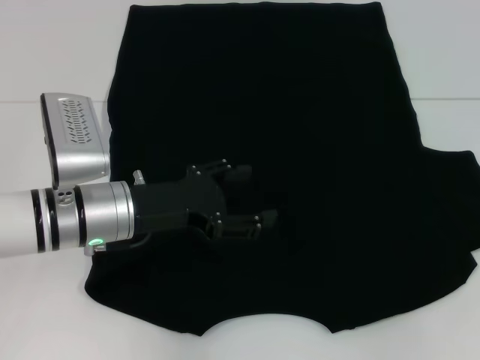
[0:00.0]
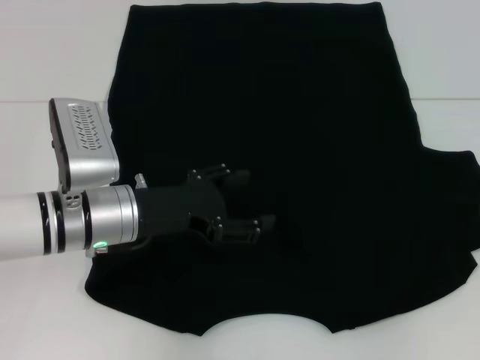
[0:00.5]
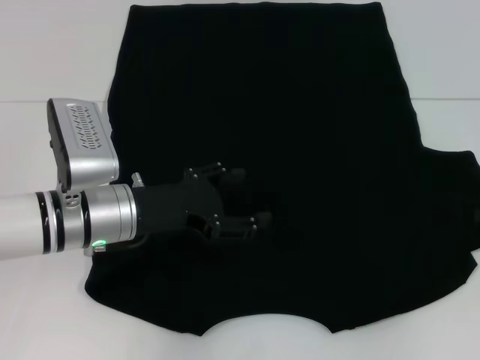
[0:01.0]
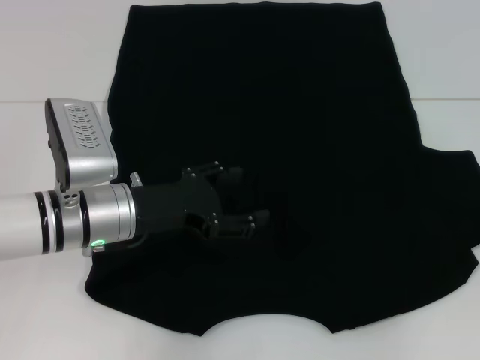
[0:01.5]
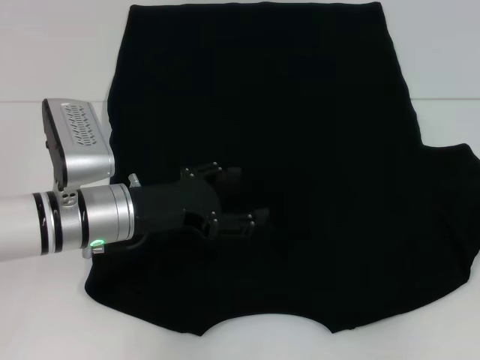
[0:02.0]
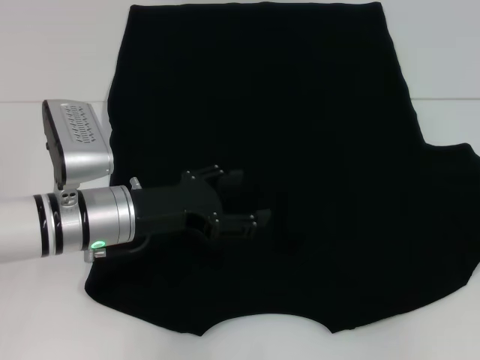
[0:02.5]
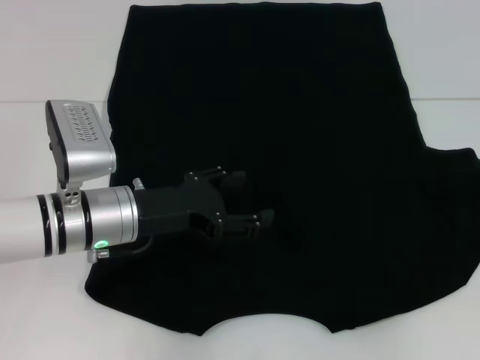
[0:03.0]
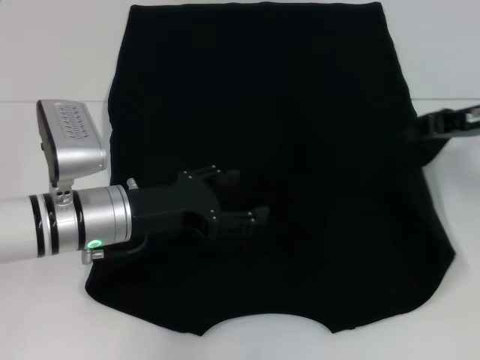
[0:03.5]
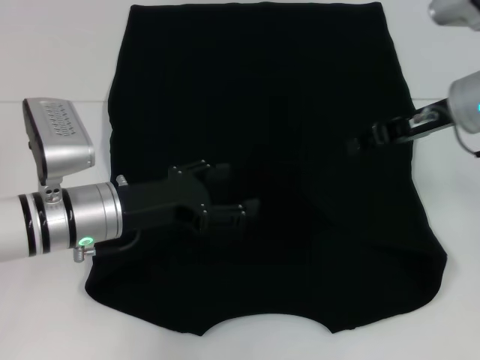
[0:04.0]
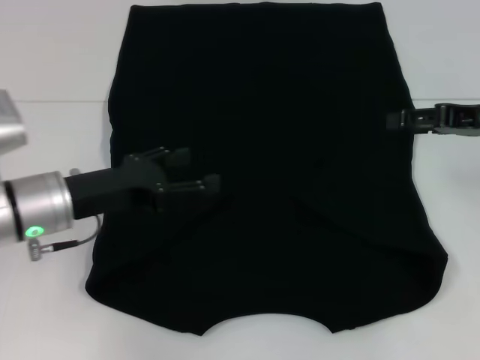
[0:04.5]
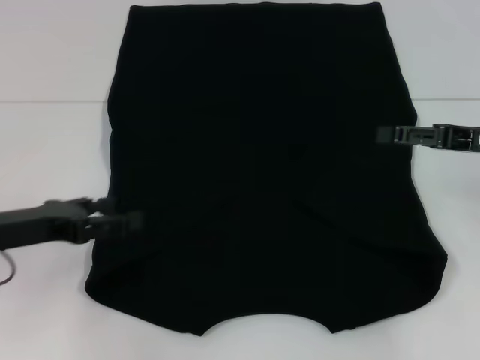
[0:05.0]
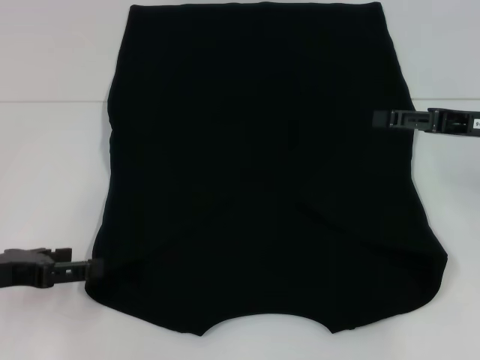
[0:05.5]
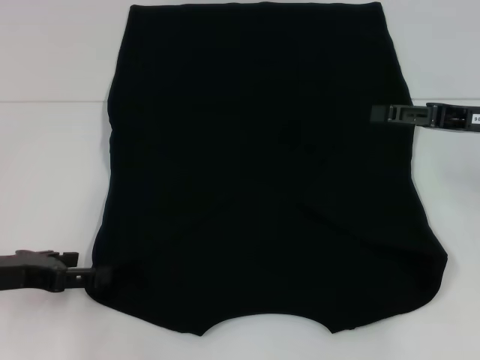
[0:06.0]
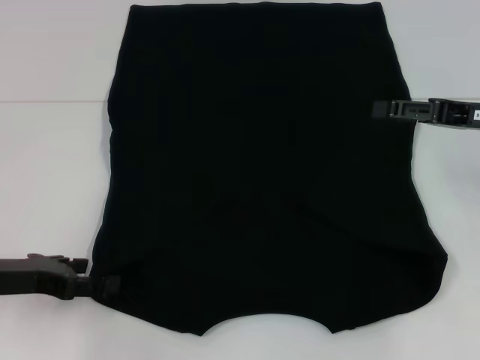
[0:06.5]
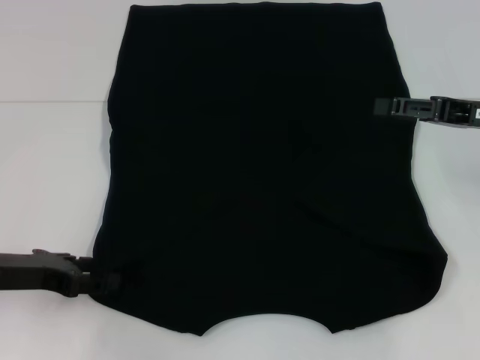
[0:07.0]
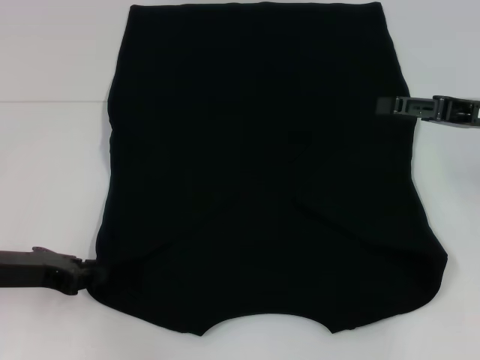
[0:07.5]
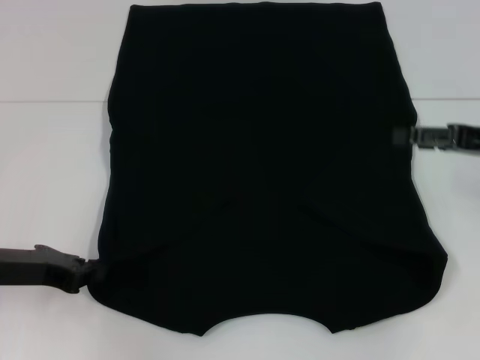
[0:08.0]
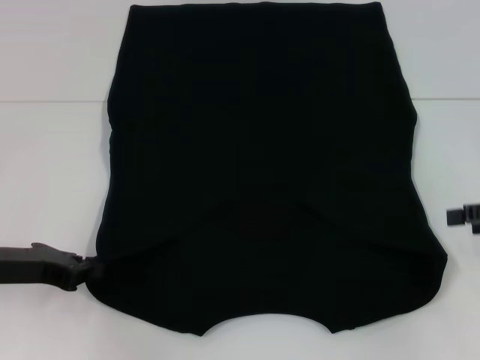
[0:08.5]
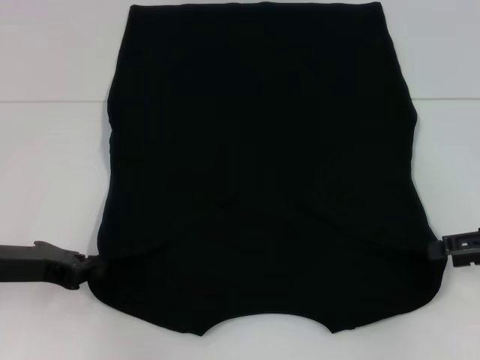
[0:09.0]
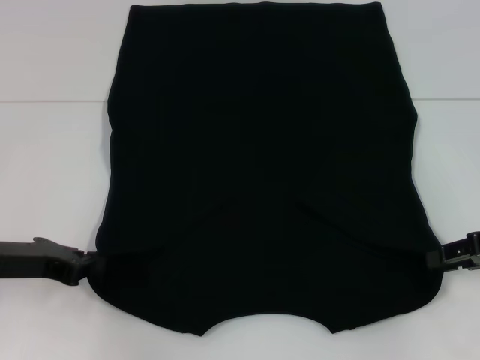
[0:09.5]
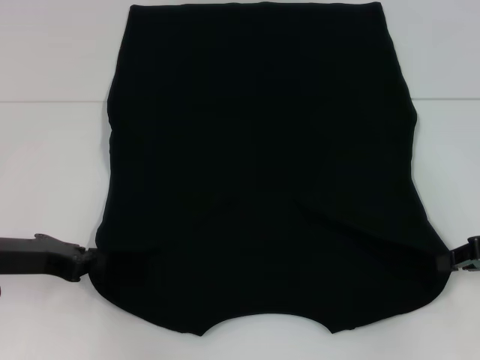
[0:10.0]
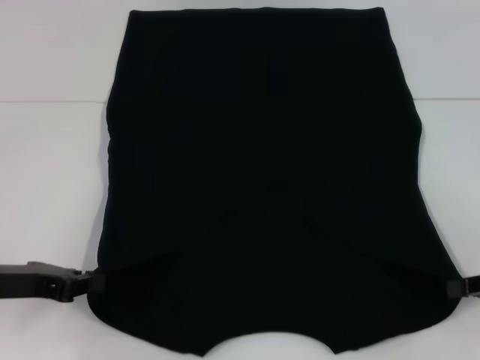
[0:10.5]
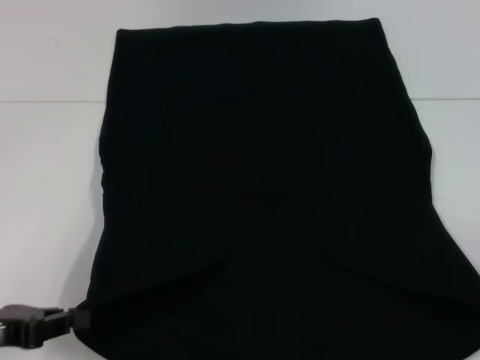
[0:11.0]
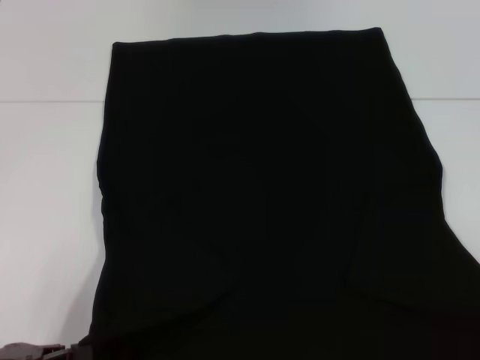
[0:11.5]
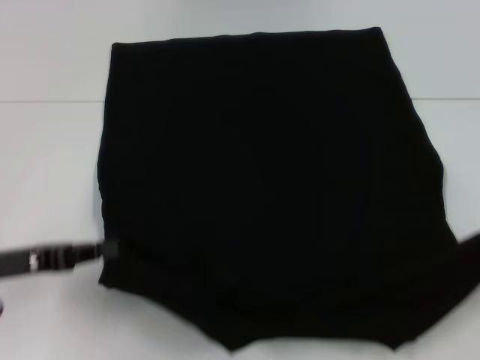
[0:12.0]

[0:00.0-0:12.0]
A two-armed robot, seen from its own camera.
Step, 0:00.0 to 0:04.0: Fold the bottom right sleeve with your right hand.
Step, 0:04.5 to 0:10.0: Grab the bottom left corner with your left hand.
Step, 0:04.5 to 0:10.0: Grab the bottom right corner with your right hand.
0:02.0 to 0:04.0: The right gripper shifts approximately 15 cm to the left and upward.
0:04.0 to 0:06.0: The left gripper is displaced to the left and backward by about 15 cm. The right gripper moves to the right, about 5 cm, and opens.
0:06.0 to 0:08.0: The left gripper closes.
0:08.0 to 0:10.0: The right gripper travels downward by approximately 5 cm, and closes up.
0:10.0 to 0:12.0: The left gripper reaches some 10 cm backward, then returns. Meanwhile the right gripper shifts roughly 10 cm to the right and backward.

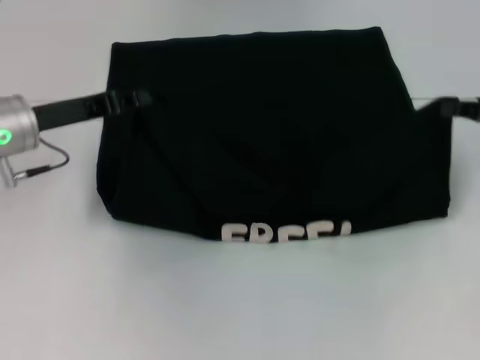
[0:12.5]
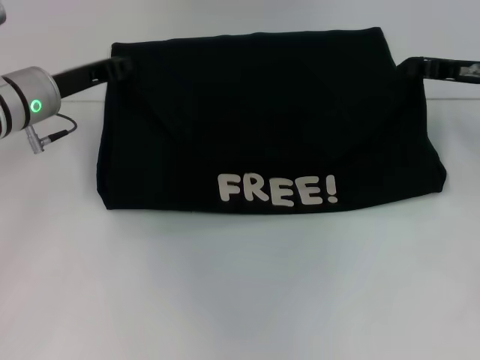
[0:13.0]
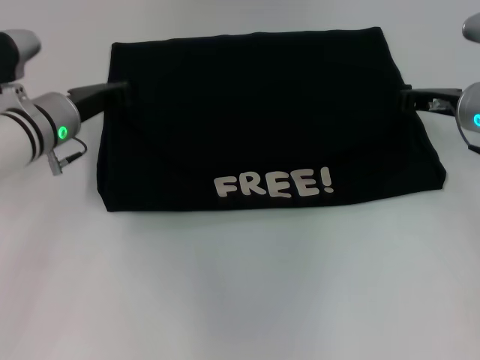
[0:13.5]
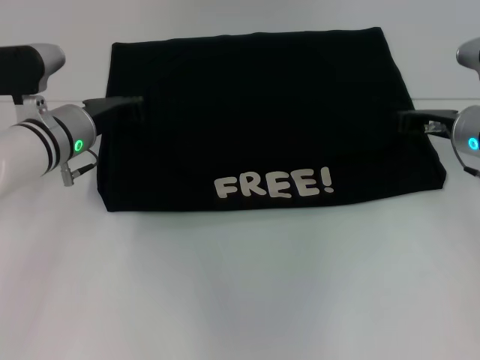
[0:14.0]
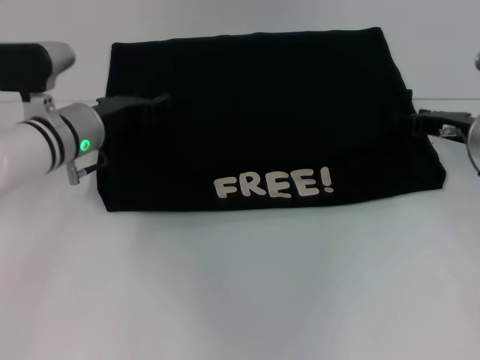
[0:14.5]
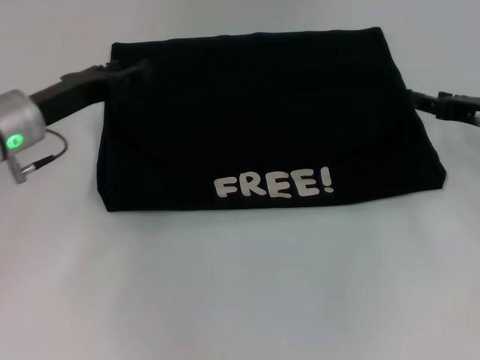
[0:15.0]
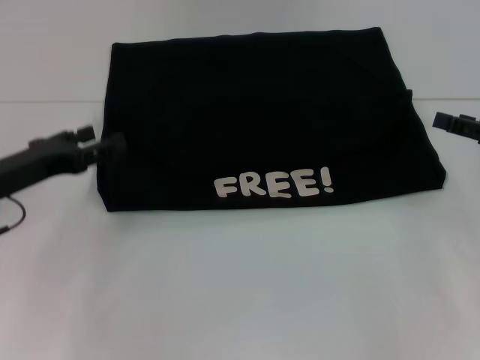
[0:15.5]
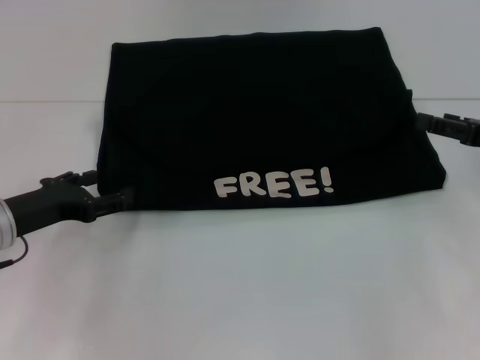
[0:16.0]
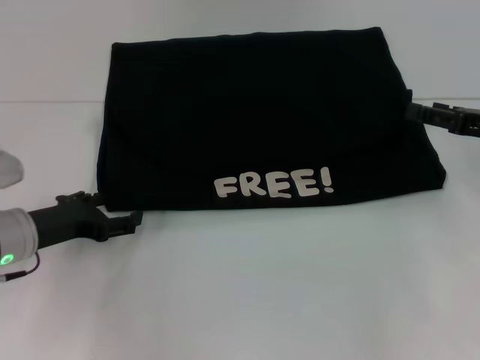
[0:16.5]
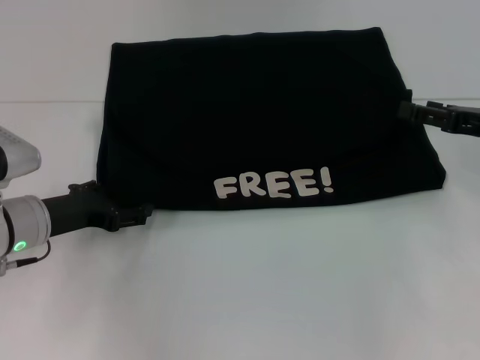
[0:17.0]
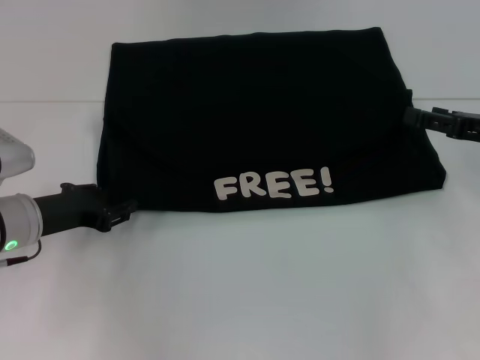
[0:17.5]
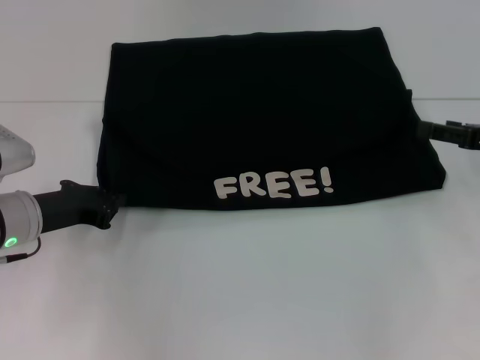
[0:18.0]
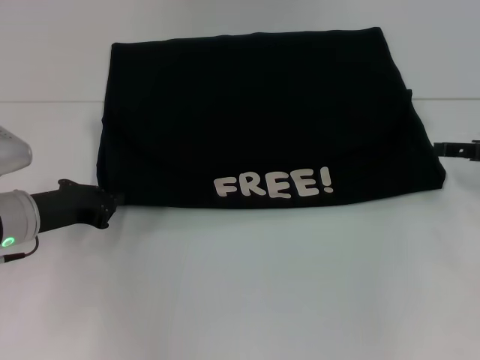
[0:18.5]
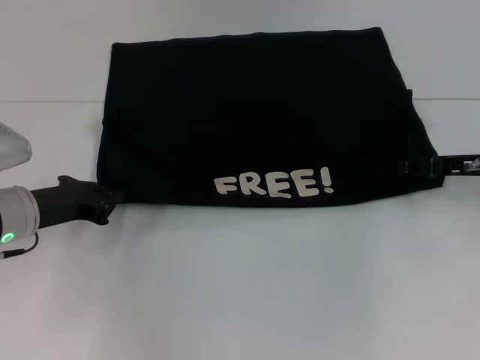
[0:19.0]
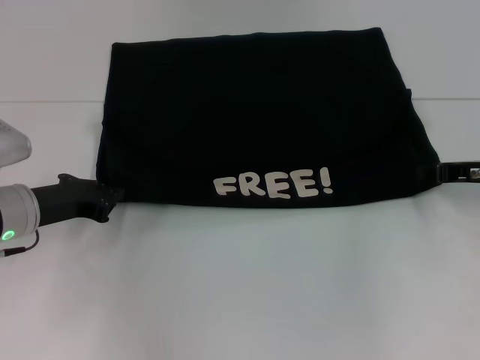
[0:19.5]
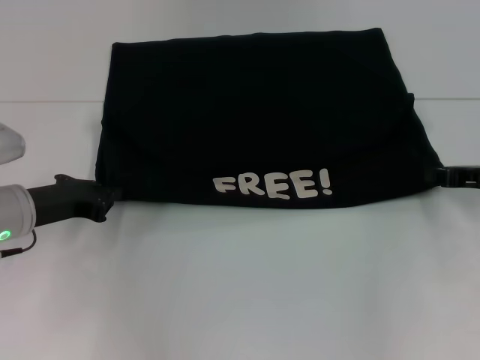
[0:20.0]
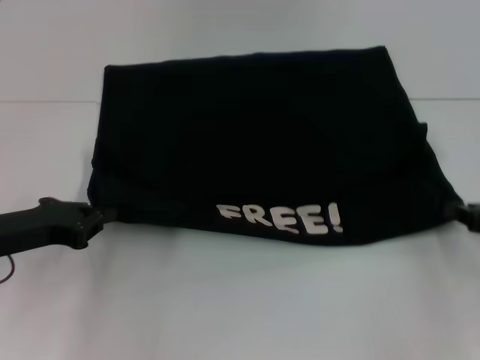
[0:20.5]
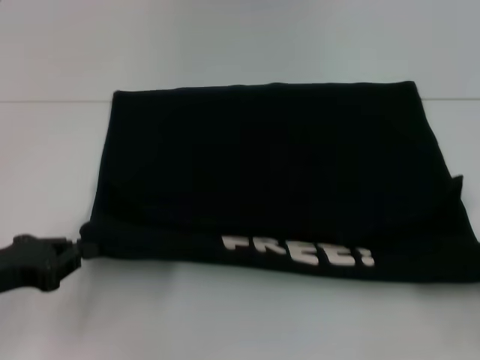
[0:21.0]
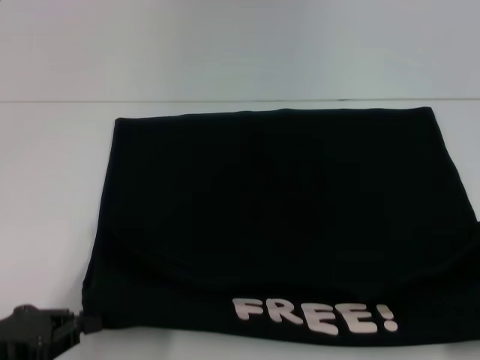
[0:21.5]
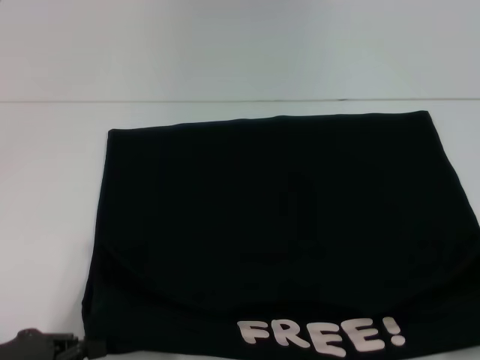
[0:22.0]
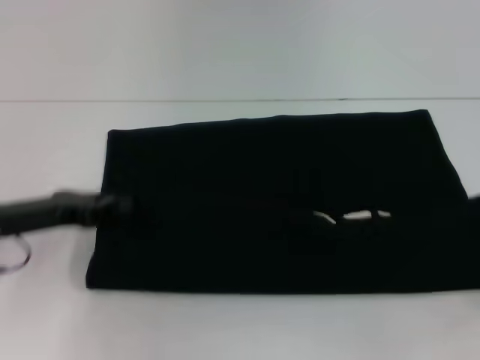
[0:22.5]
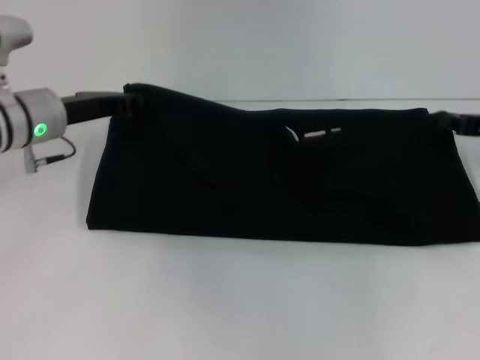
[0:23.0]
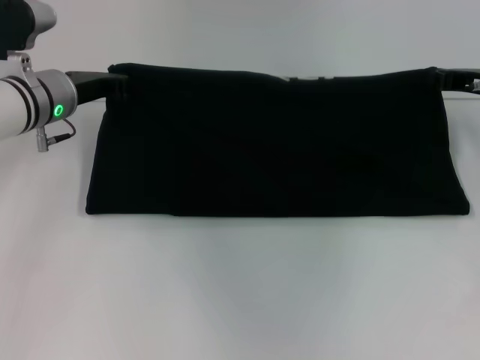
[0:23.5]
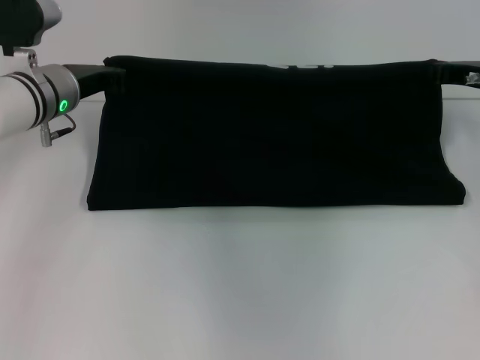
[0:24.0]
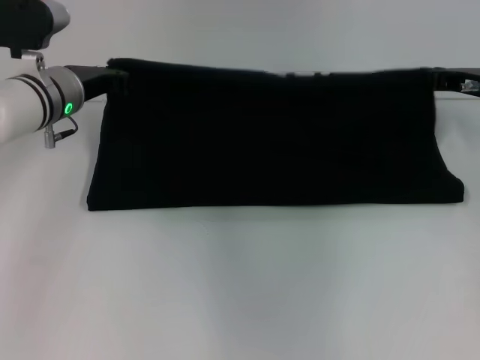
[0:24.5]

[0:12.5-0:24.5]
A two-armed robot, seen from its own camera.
Step, 0:12.5 to 0:14.5: Fold the clothes with your left hand.
Step, 0:12.5 to 0:14.5: Fold the clothes with your right hand.
Step, 0:15.0 to 0:21.5: Pull the clothes with your left hand.
Step, 0:15.0 to 0:21.5: Pull the clothes with your right hand.
0:12.5 to 0:14.5: The left gripper goes roughly 5 cm to the right. Meanwhile the right gripper goes approximately 10 cm to the left and downward.
0:14.5 to 0:16.5: The left gripper heads backward and to the left, covering some 10 cm, and opens up; the right gripper heads to the right and backward, covering some 5 cm, and opens up.
0:16.5 to 0:18.5: The left gripper closes.
0:18.5 to 0:20.5: The left gripper ends up some 5 cm from where it was, while the right gripper shifts roughly 5 cm backward, and closes up.
0:20.5 to 0:22.5: The left gripper moves roughly 10 cm backward and comes back. The right gripper heads to the right, covering roughly 5 cm, and travels backward and back again, approximately 15 cm each way.
0:22.5 to 0:24.5: The left gripper is displaced forward and to the right by approximately 15 cm. Meanwhile the right gripper heads forward and to the left, covering about 20 cm.

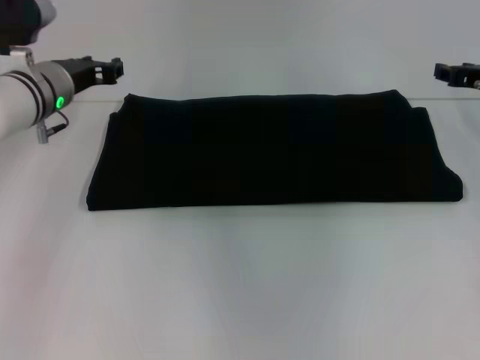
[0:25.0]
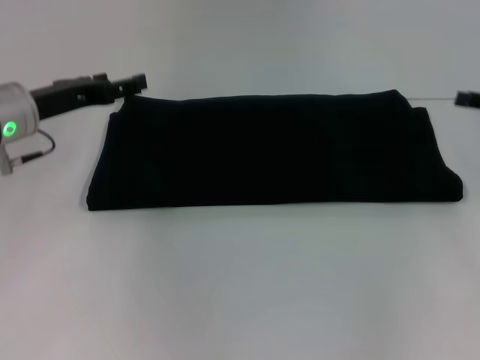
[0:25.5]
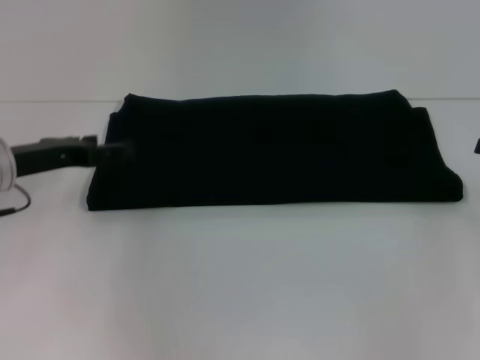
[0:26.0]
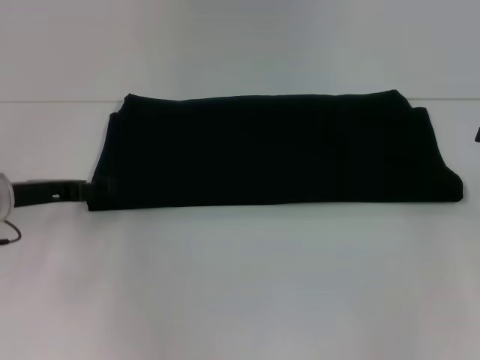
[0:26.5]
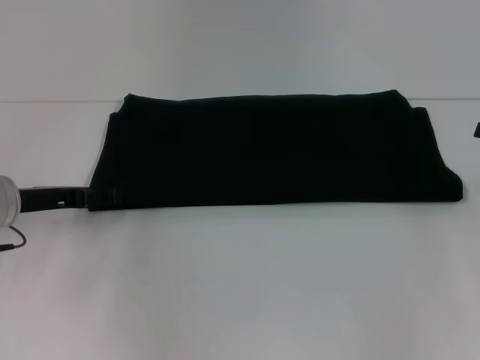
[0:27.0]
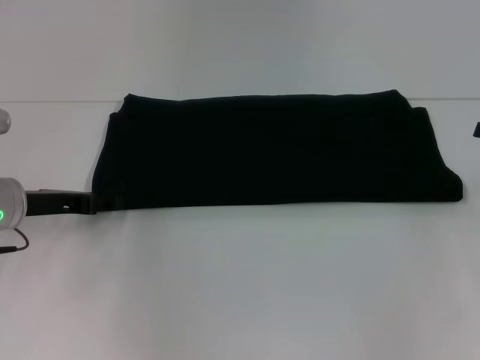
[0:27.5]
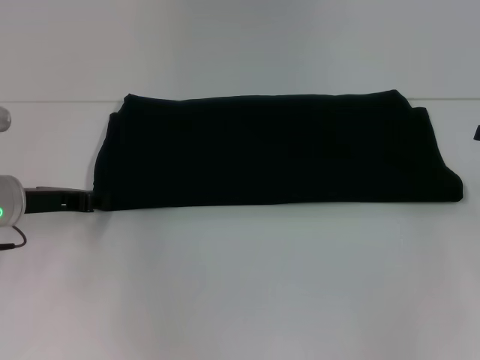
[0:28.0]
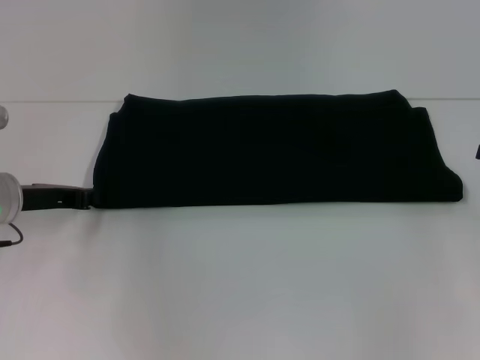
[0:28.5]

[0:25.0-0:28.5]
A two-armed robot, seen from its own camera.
0:25.0 to 0:27.0: The right gripper is displaced backward and to the right by about 15 cm, and opens its fingers. Meanwhile the left gripper heads backward and to the left, covering about 10 cm, and opens up.
0:27.0 to 0:28.5: The left gripper closes its fingers.
